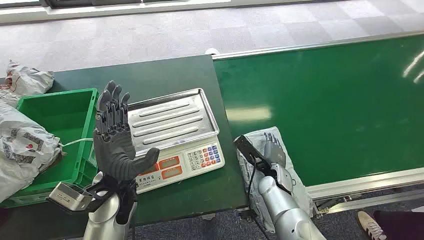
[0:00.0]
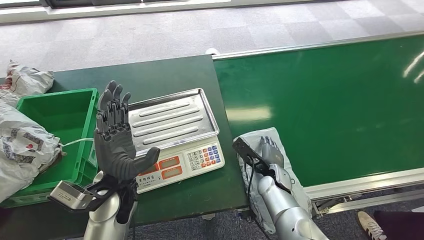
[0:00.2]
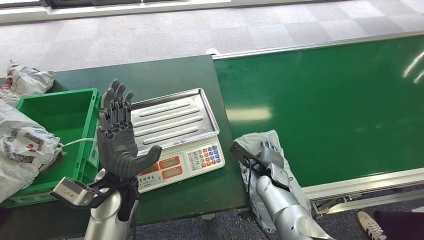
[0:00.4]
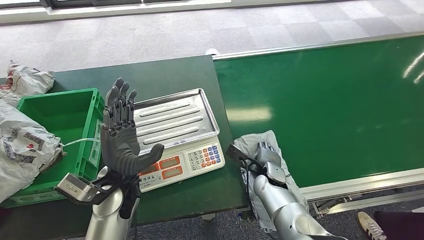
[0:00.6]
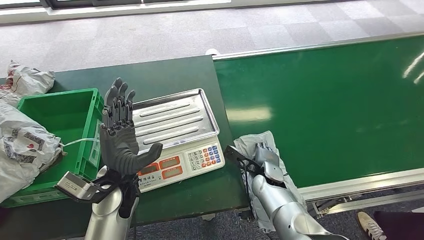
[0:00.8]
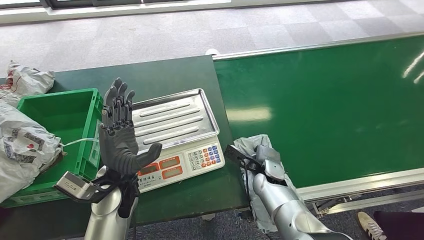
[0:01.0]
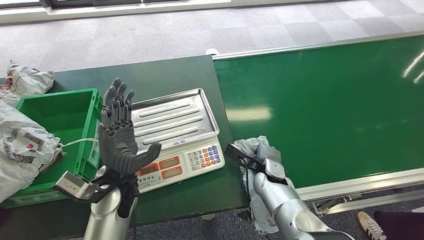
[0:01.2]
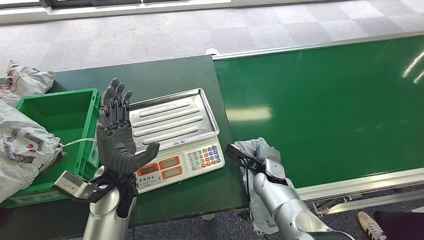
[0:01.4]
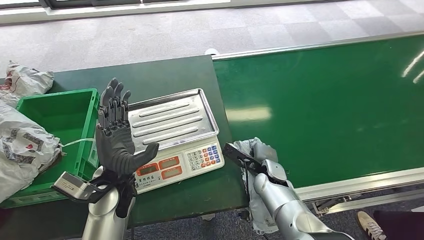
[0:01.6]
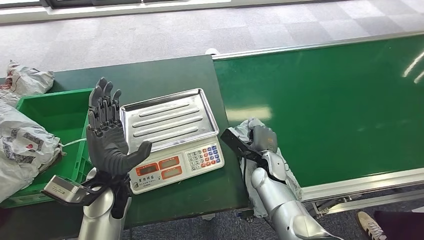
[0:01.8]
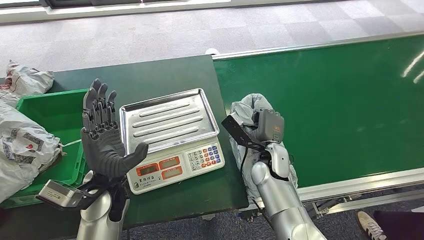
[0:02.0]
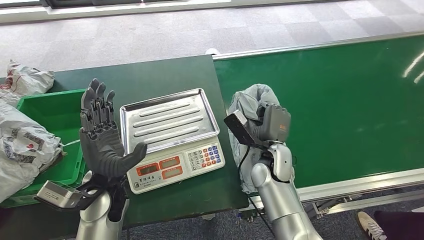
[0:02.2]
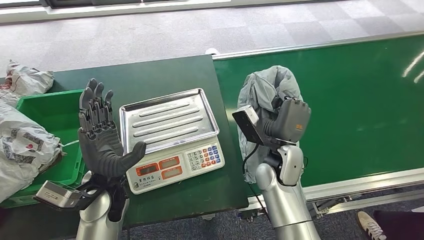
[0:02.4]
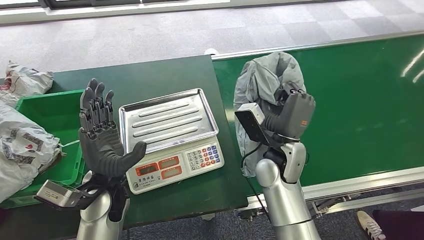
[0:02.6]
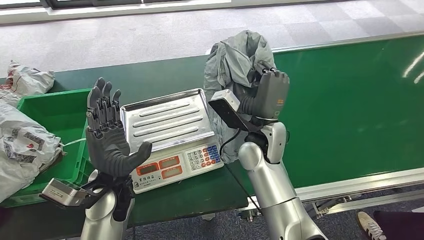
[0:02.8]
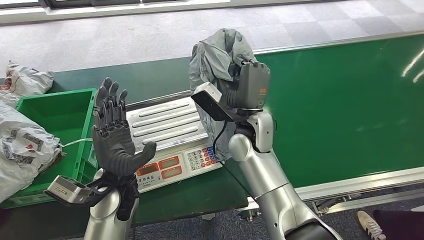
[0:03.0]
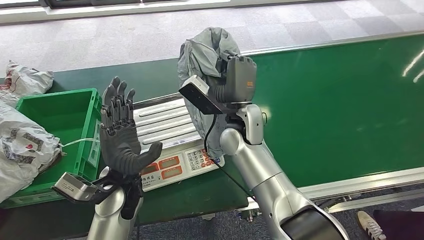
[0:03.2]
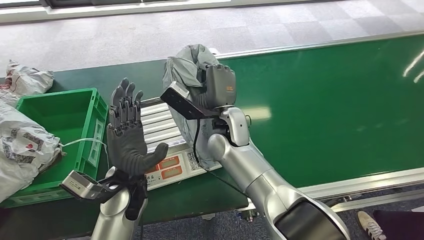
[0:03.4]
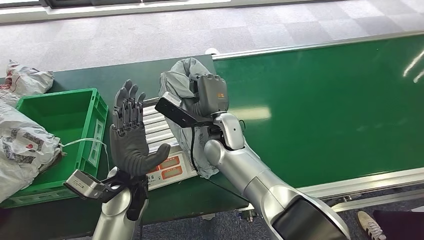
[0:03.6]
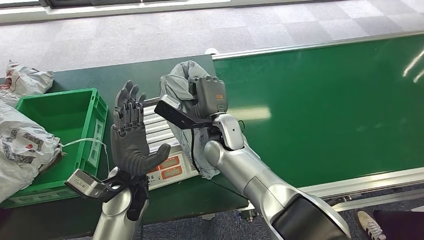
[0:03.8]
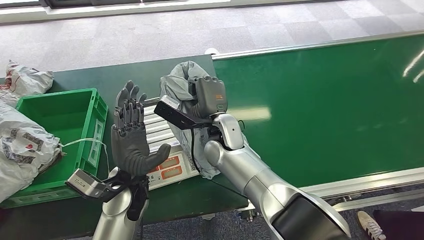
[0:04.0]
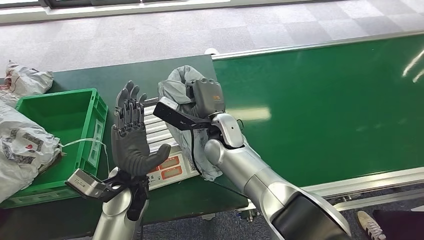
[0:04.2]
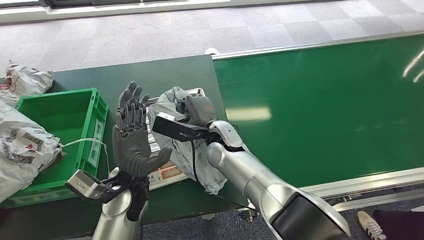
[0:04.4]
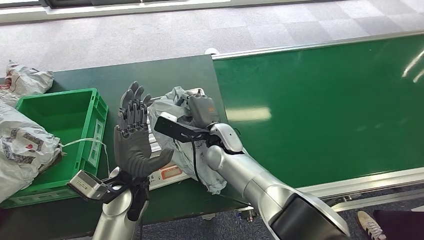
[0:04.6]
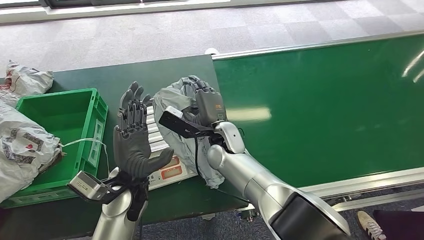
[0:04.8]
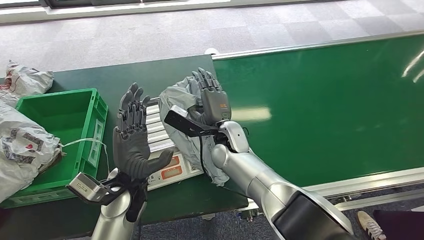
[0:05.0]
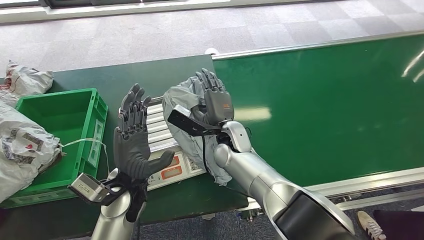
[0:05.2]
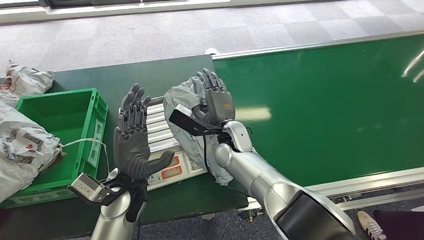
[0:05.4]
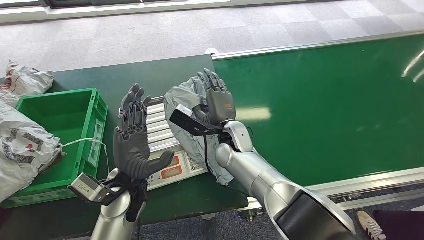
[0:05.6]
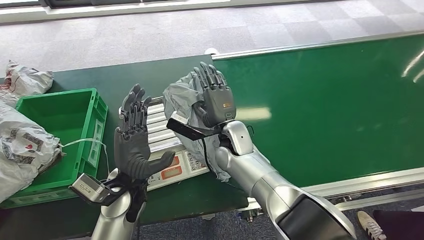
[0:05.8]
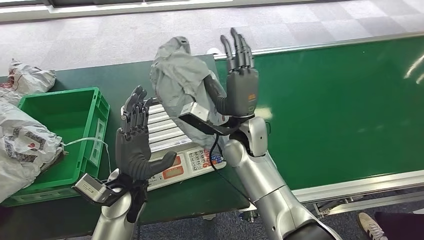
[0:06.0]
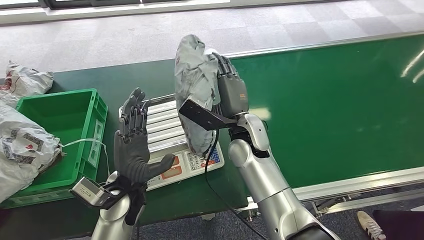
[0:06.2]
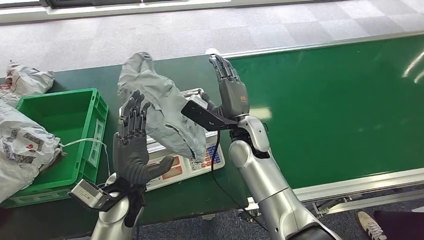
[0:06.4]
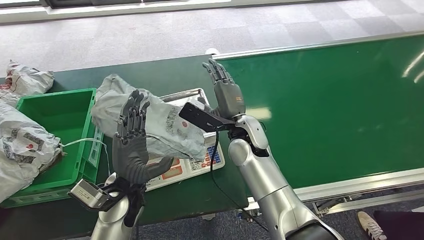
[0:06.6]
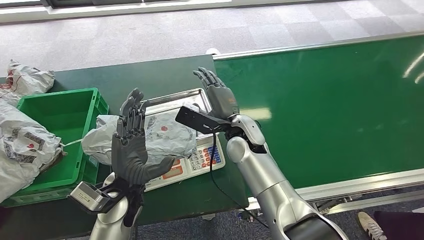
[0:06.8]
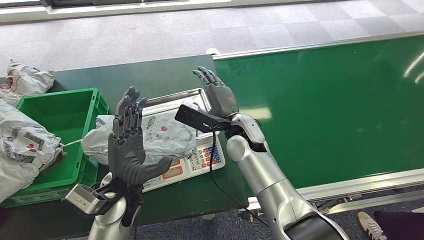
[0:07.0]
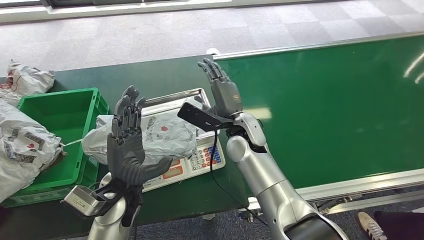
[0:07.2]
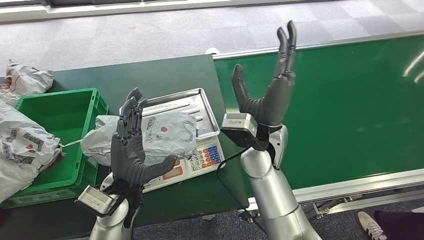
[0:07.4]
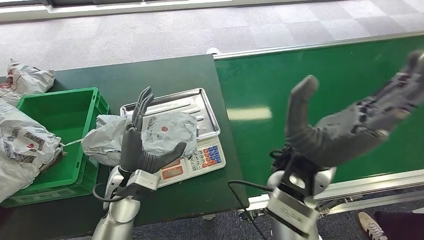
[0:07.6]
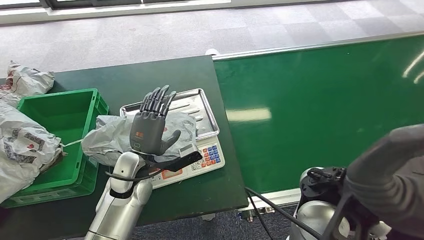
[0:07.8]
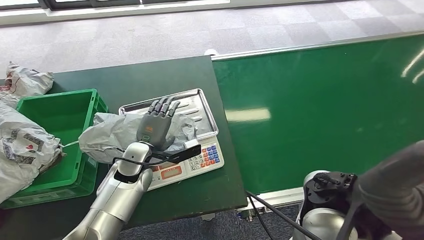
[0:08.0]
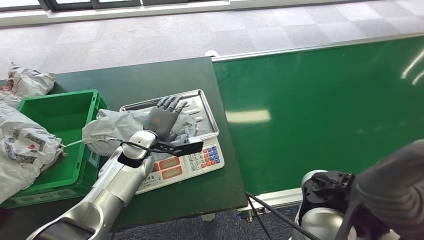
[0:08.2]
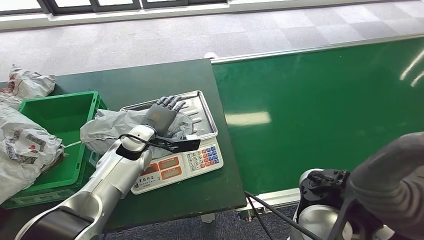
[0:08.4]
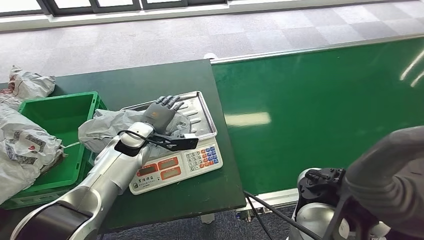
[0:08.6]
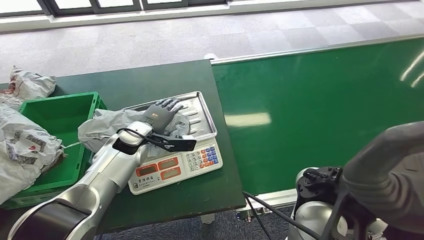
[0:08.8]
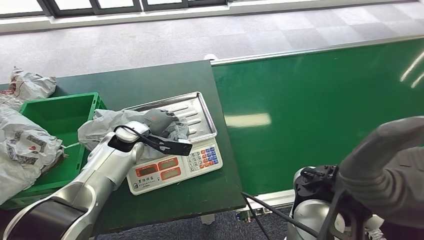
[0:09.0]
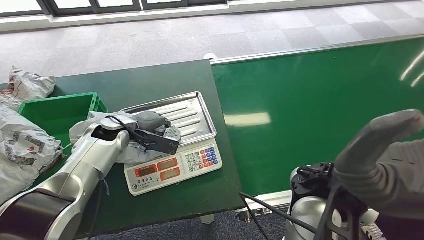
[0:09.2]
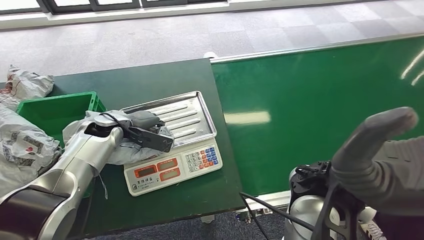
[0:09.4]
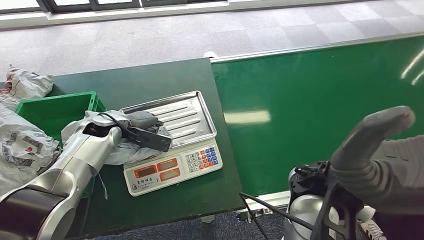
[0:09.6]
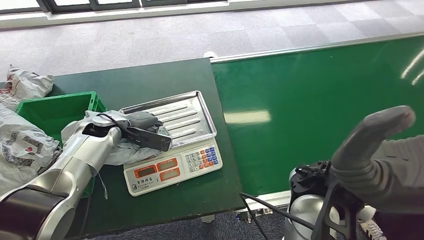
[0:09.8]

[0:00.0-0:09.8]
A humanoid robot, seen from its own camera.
Step, 0:00.0 to 0:03.2: Pick up the package from the conveyor belt.
Step, 0:03.4 to 0:08.4: Place the package onto the inbound machine.
0:01.4 to 0:02.8: The right hand goes roughly 20 cm upward.
0:04.2 to 0:05.6: The hands make only small movements.

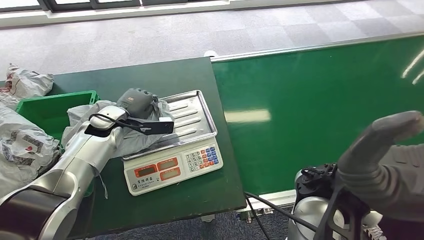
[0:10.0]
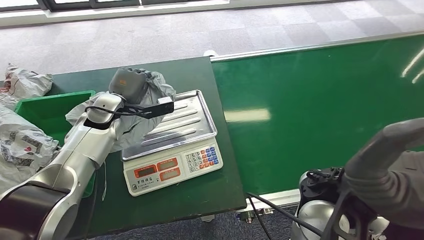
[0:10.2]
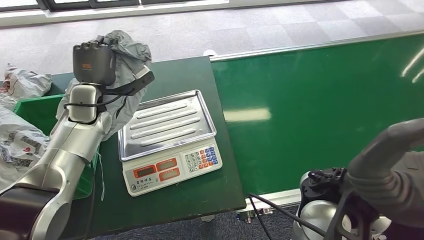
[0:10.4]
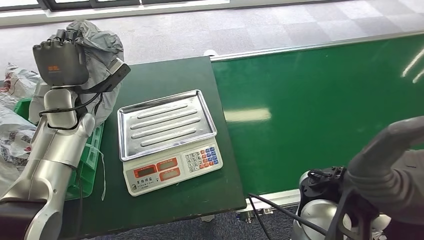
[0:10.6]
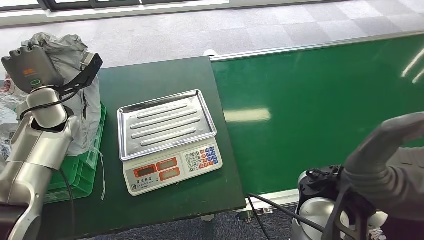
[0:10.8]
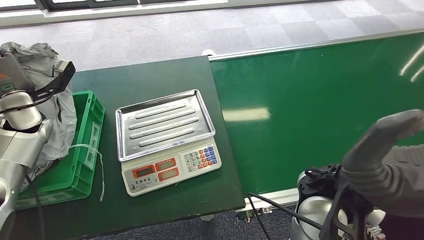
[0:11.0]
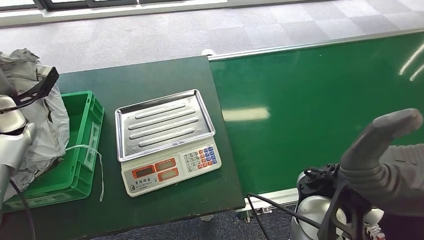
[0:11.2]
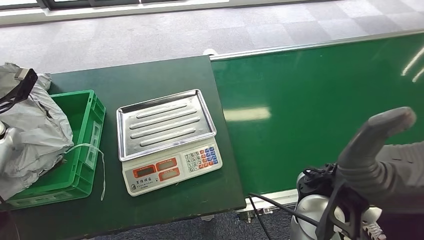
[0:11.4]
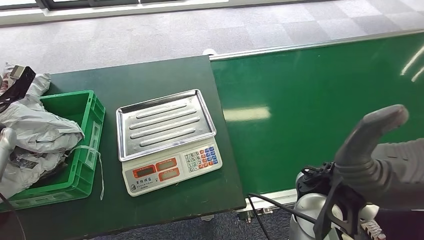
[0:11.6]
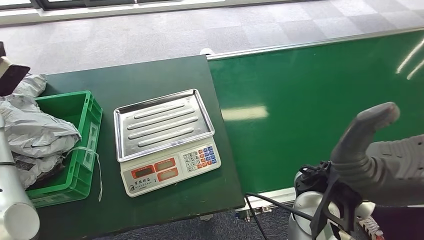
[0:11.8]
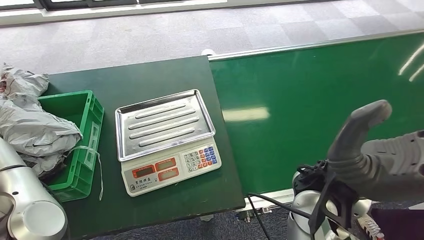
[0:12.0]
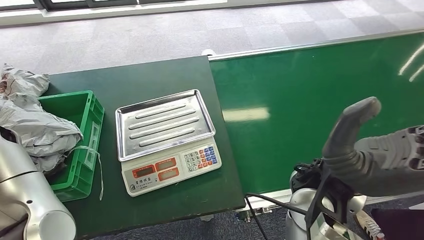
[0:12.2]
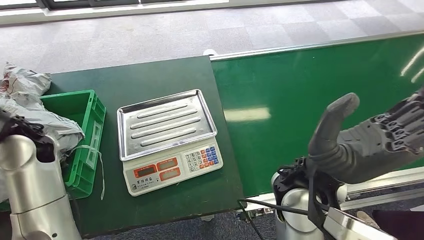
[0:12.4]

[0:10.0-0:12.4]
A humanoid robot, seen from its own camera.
Step, 0:10.8 to 0:12.4: Place the package into the parcel locker.

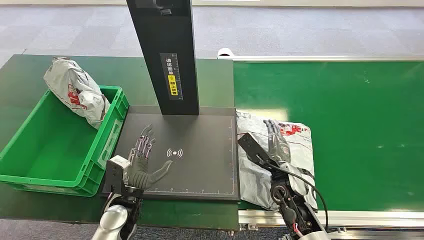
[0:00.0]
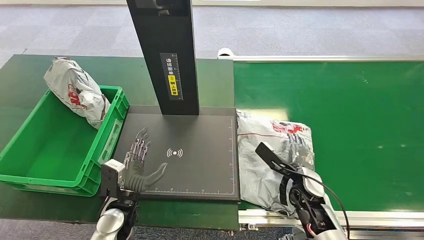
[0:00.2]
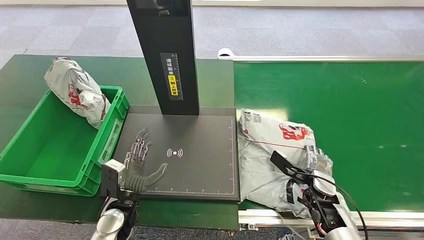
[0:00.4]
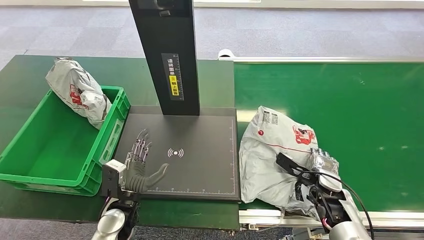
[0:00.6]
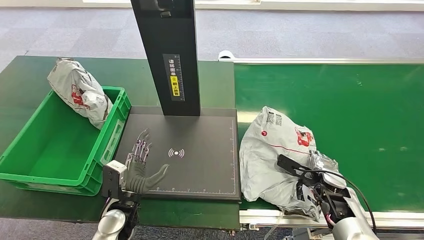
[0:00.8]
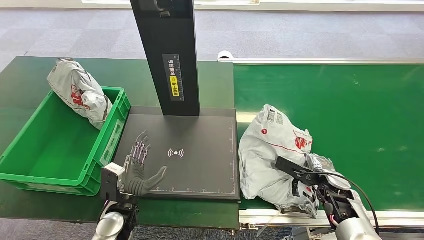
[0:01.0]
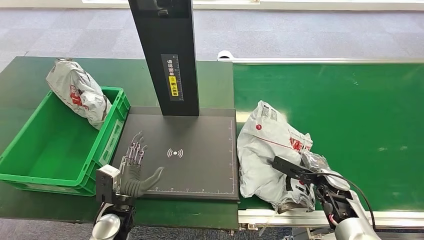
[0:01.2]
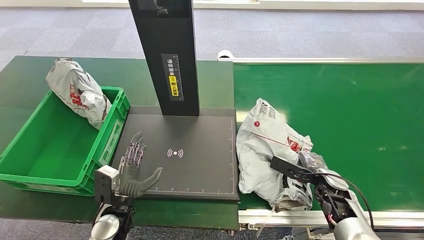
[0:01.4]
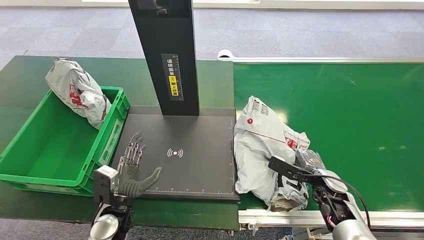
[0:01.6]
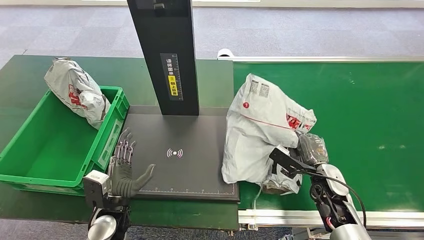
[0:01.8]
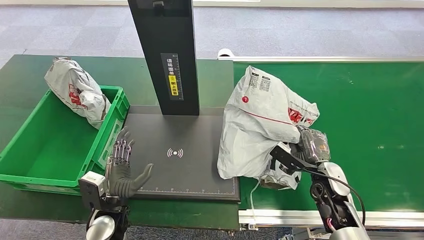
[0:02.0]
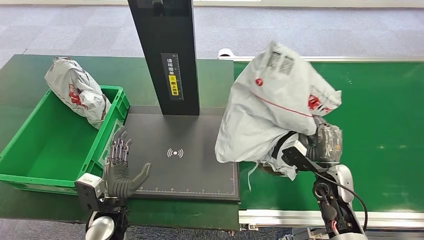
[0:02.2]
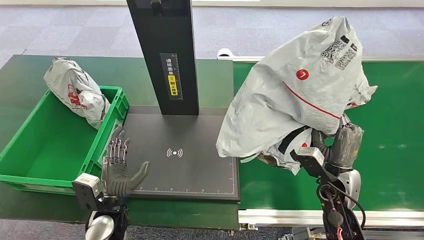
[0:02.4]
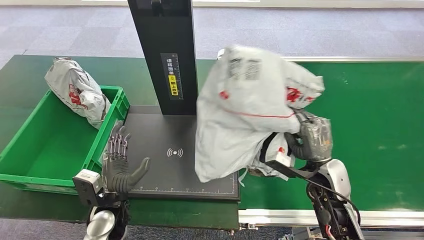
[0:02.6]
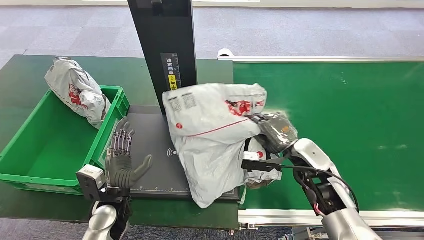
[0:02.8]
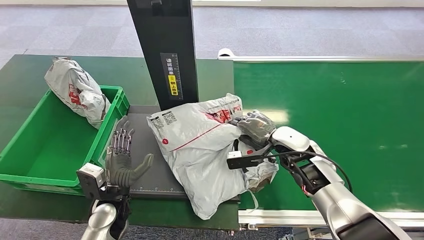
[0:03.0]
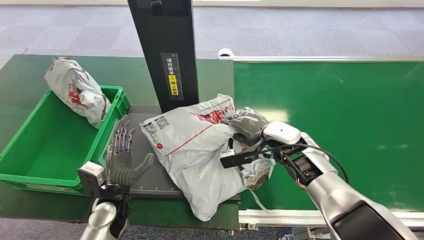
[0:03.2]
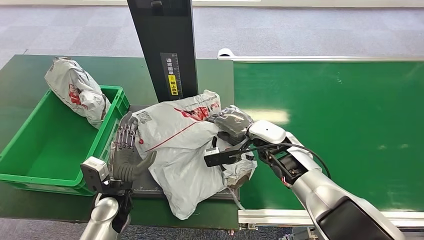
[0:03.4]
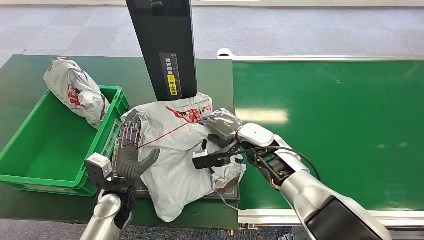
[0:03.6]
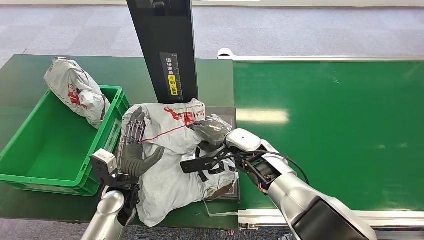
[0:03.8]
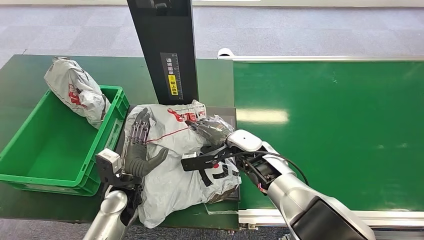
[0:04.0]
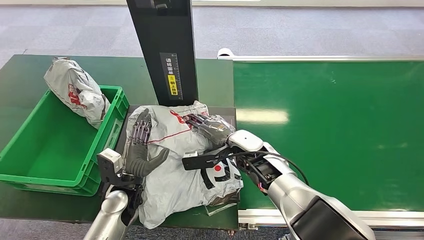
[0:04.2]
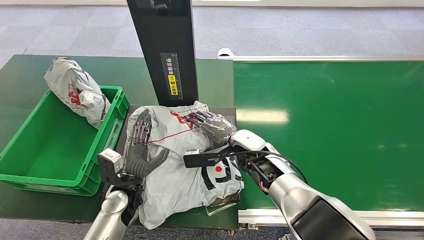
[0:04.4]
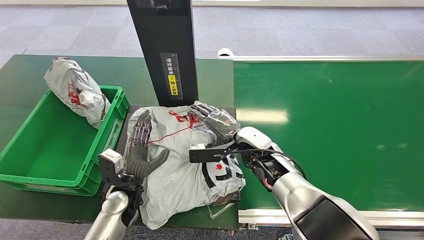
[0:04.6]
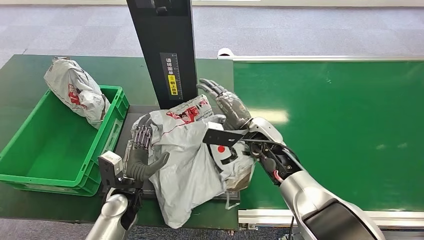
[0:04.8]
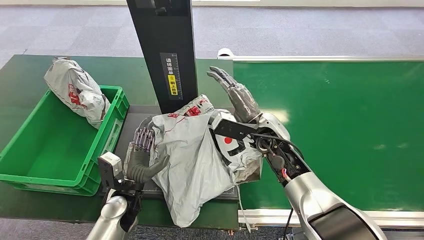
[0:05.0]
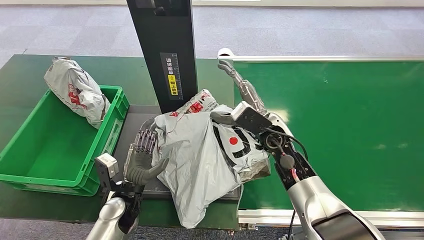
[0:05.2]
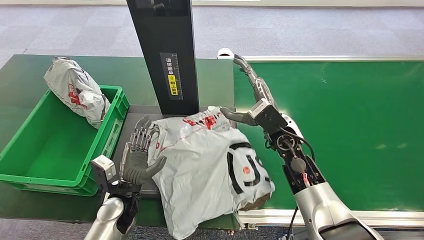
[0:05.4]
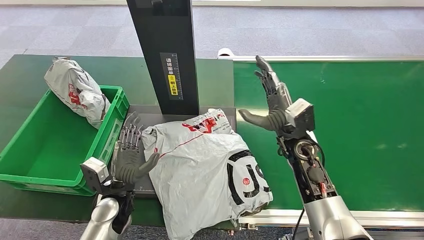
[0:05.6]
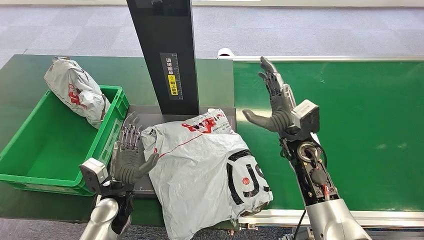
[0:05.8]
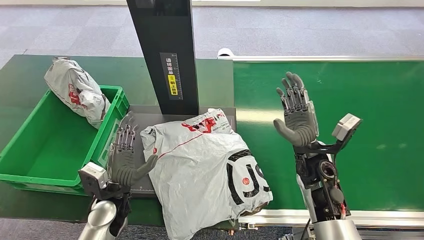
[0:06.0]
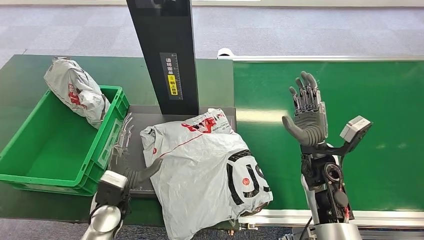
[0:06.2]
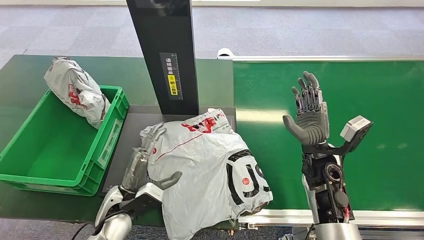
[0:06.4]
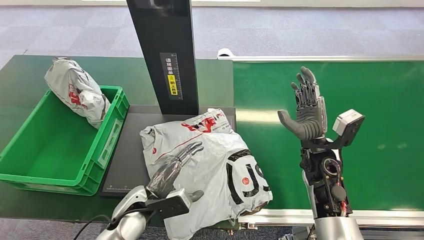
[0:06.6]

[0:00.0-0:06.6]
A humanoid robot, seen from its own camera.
Step, 0:00.0 to 0:02.2: Pick up the package from the conveyor belt.
Step, 0:02.4 to 0:04.6: Place the package onto the inbound machine.
